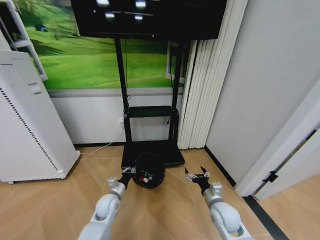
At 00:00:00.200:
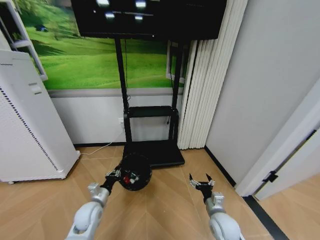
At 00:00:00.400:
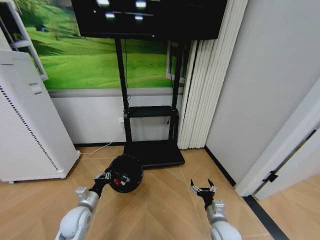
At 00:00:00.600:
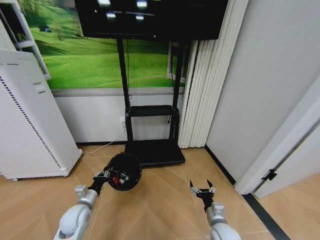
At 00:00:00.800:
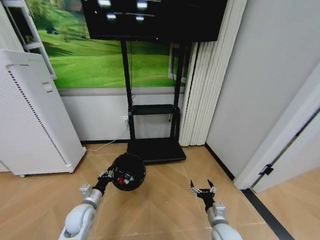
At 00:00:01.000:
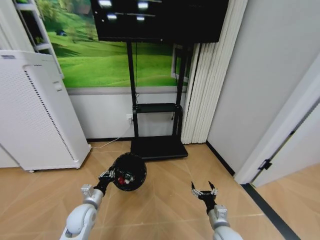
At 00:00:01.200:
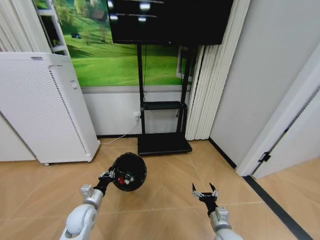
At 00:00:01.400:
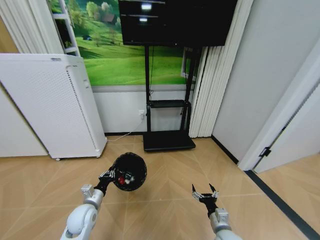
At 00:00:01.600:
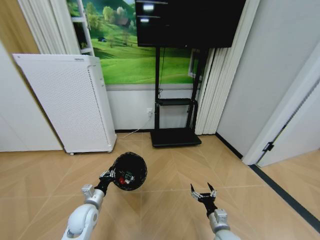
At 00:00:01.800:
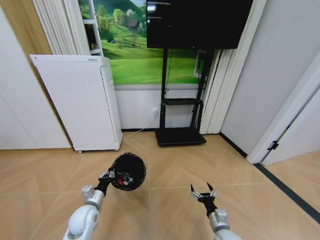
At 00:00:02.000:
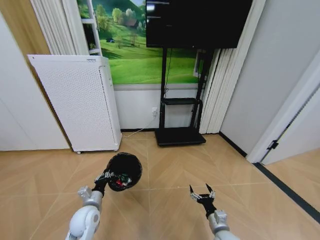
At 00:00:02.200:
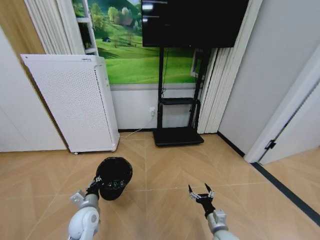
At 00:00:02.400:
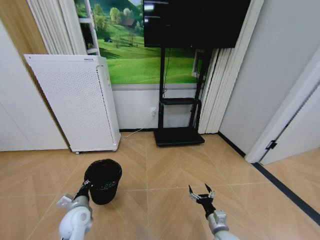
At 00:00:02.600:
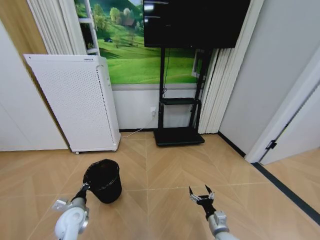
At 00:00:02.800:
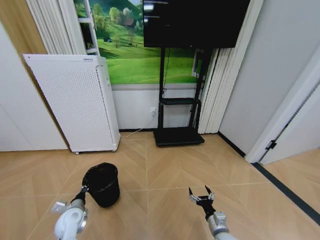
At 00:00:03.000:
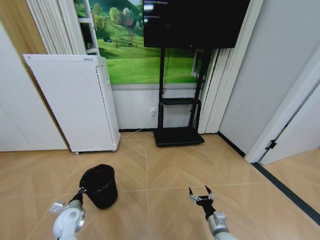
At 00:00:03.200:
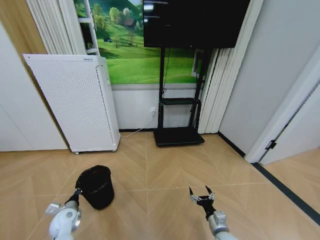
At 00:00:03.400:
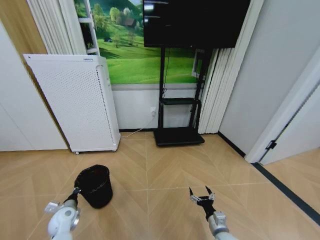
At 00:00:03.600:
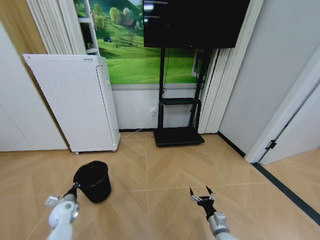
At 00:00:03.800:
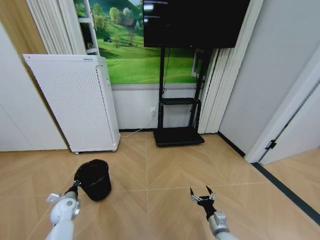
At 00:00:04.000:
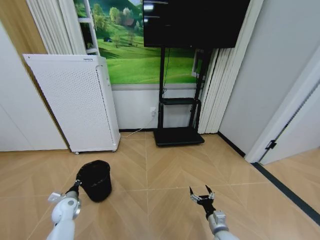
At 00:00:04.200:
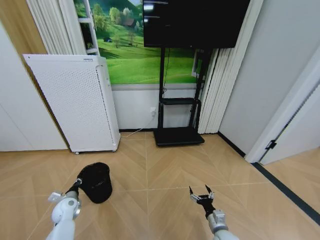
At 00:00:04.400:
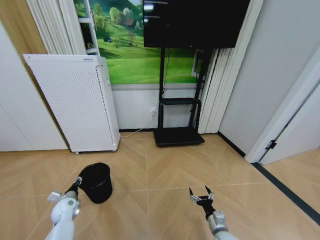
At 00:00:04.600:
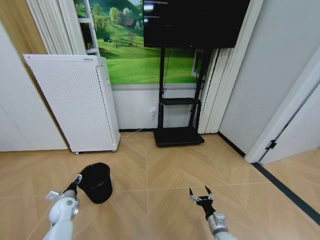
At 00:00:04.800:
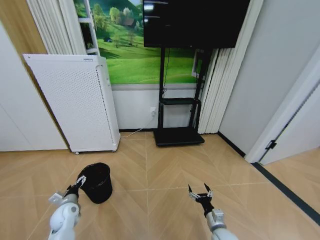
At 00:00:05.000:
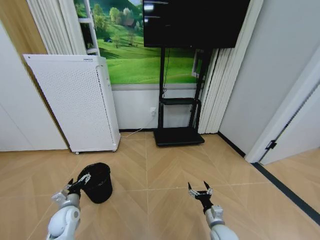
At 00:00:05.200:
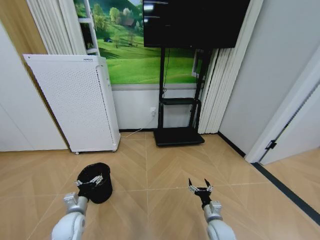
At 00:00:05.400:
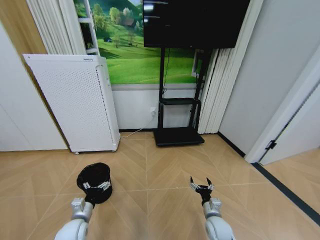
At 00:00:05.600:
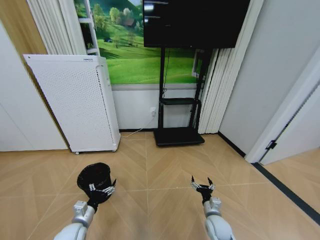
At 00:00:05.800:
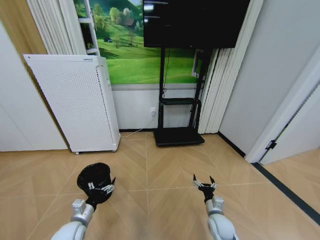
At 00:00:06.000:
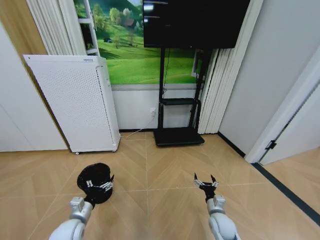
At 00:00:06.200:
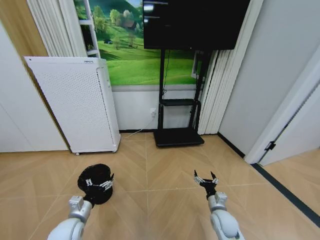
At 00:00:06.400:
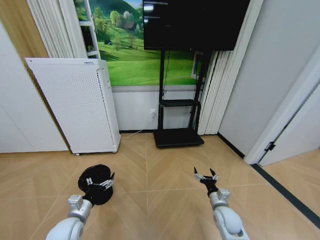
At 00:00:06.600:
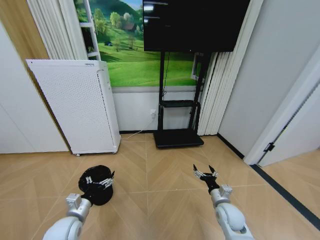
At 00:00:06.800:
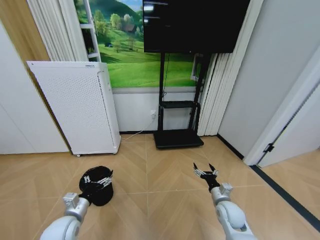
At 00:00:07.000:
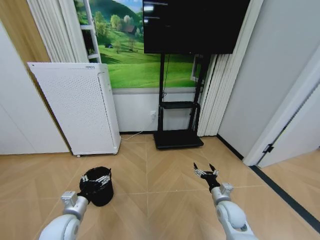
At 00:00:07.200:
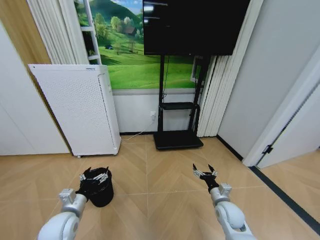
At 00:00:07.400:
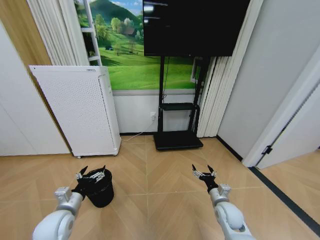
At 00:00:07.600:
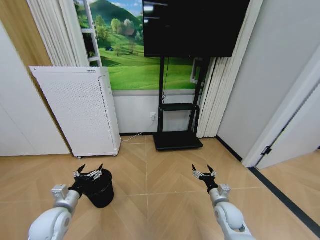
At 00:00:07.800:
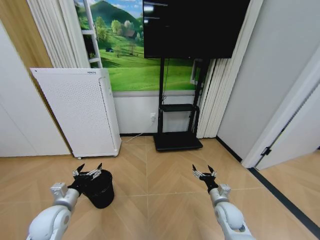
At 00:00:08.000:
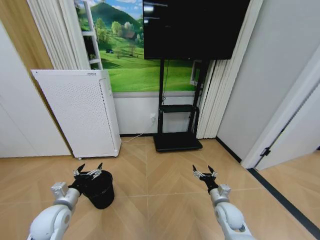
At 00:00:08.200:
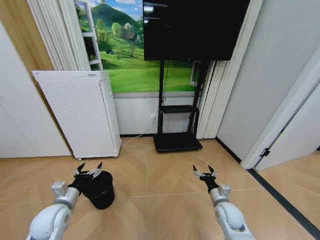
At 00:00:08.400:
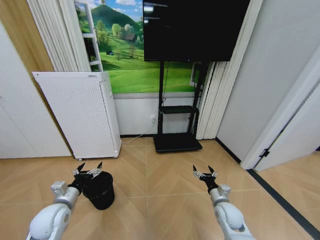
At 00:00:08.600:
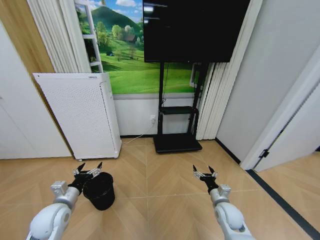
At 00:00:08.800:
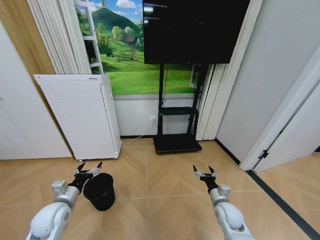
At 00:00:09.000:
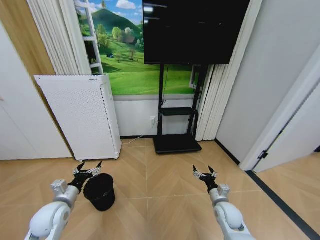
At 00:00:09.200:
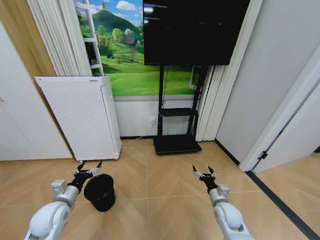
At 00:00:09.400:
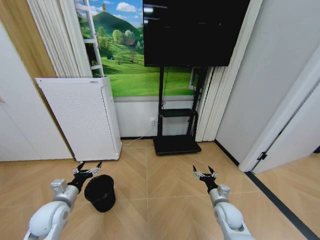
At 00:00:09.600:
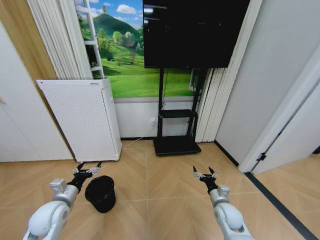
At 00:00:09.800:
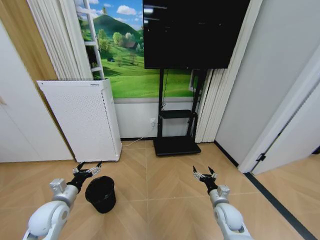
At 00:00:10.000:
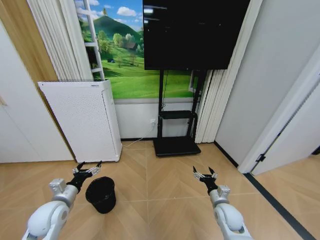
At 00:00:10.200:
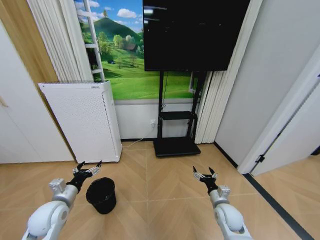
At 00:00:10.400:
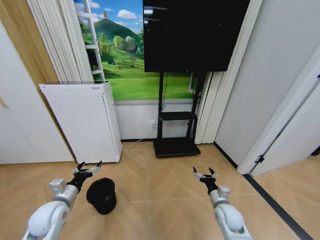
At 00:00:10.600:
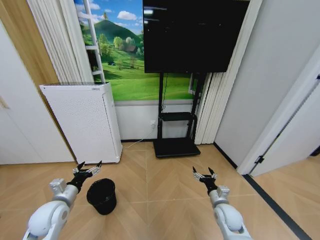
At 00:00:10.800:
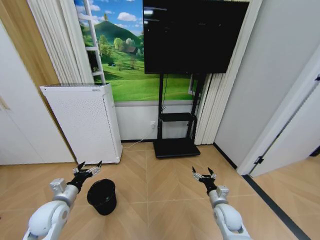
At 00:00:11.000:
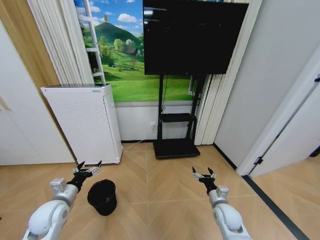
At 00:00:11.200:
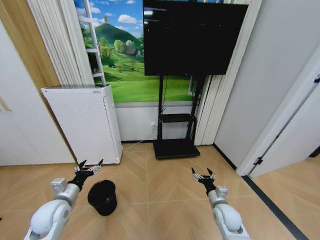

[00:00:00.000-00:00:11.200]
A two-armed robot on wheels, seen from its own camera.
Task of the whole recording: Pick up the trash bin and place the garbage on the floor into it.
00:00:00.000 to 00:00:01.600: The right gripper goes roughly 10 cm downward and backward, while the left gripper travels to the left by roughly 5 cm.
00:00:01.600 to 00:00:03.200: The left gripper is displaced to the left and downward by some 10 cm.
00:00:03.200 to 00:00:04.800: The left gripper opens.
00:00:04.800 to 00:00:06.400: The right gripper goes approximately 10 cm forward and upward; the left gripper travels to the right, backward and upward by roughly 15 cm.
00:00:06.400 to 00:00:08.000: The left gripper ends up about 5 cm from where it was.
00:00:08.000 to 00:00:09.600: There are only small adjustments of the grippers.
00:00:09.600 to 00:00:11.200: The two grippers keep their place.
